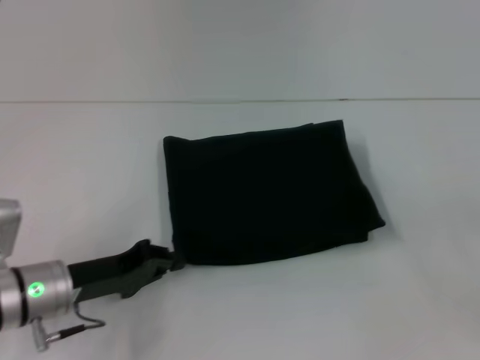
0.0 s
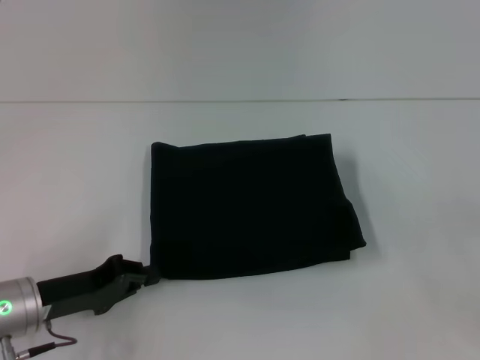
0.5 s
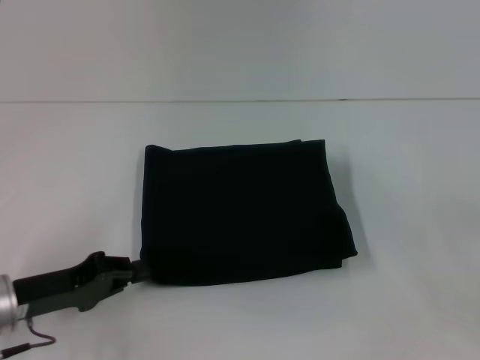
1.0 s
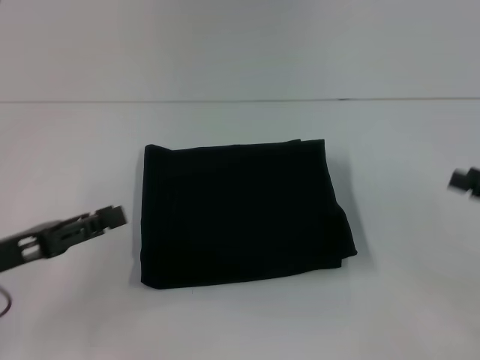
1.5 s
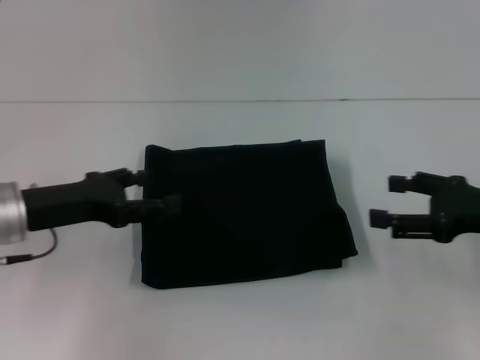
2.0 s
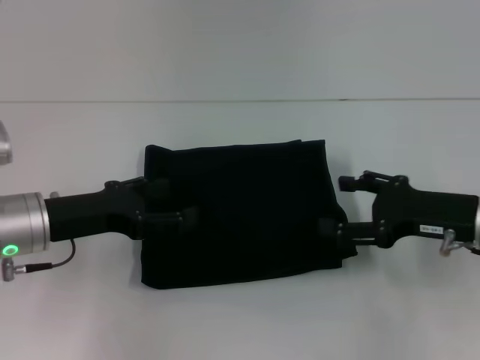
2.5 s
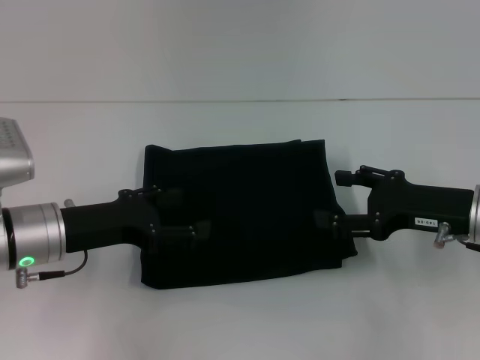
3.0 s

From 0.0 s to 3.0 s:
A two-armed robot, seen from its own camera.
From 0.0 s to 1.5 s: The left gripper shifts approximately 10 cm to the left and upward, and opens.
From 1.5 s to 3.0 s: The left gripper travels to the right and forward by about 10 cm, and opens. The right gripper travels to the left and forward by about 10 cm.

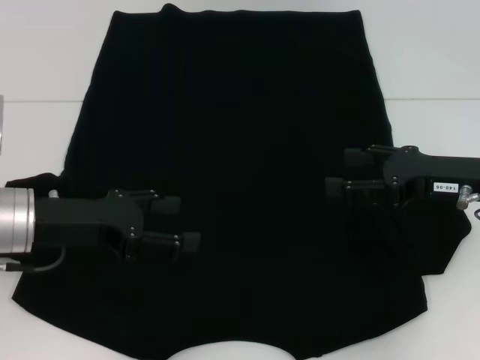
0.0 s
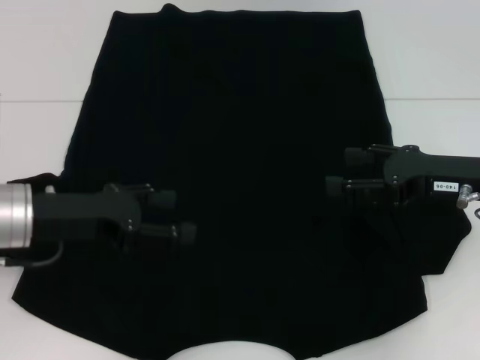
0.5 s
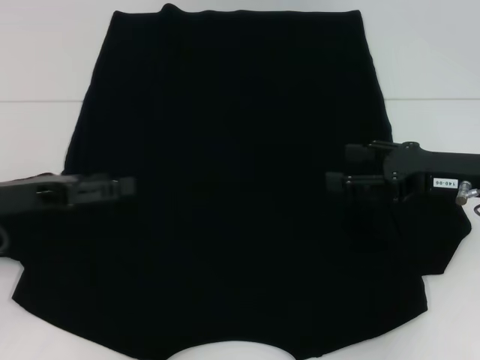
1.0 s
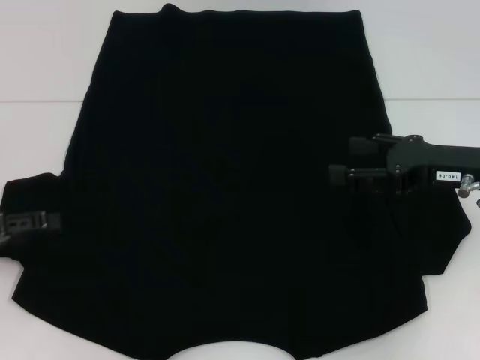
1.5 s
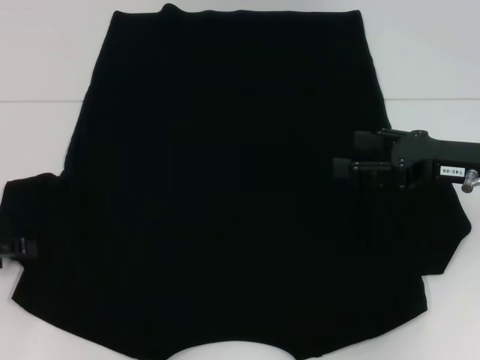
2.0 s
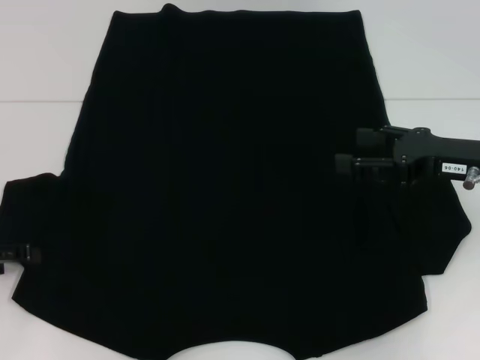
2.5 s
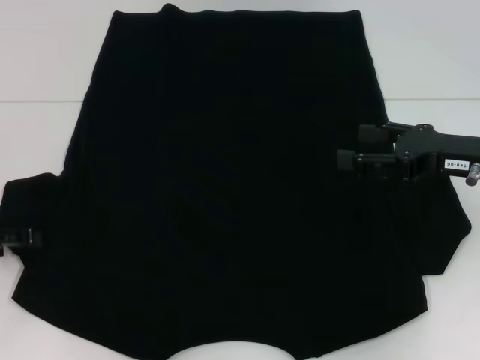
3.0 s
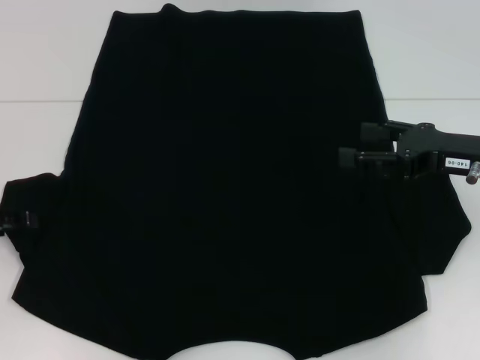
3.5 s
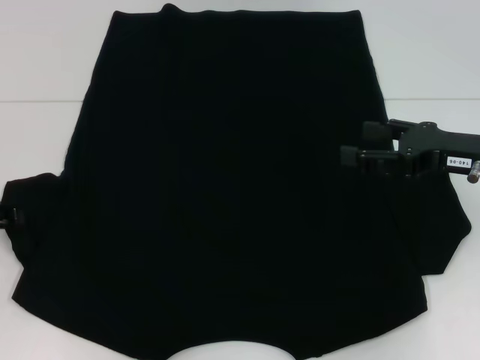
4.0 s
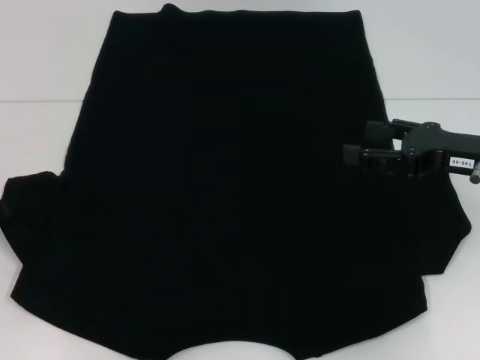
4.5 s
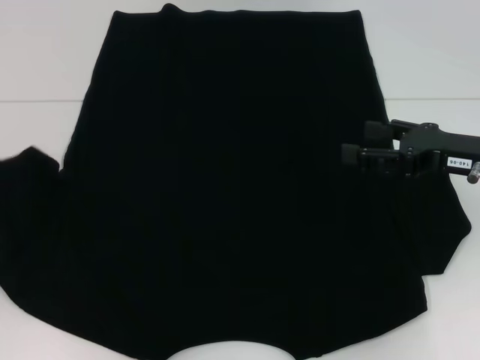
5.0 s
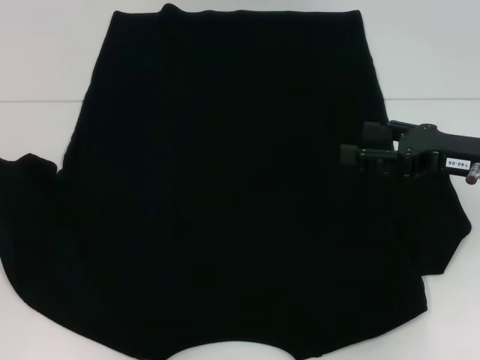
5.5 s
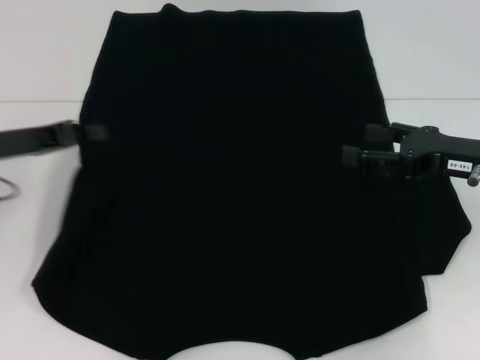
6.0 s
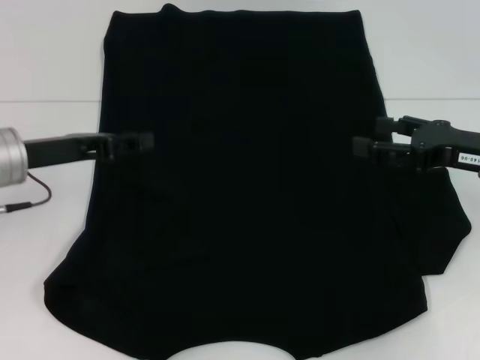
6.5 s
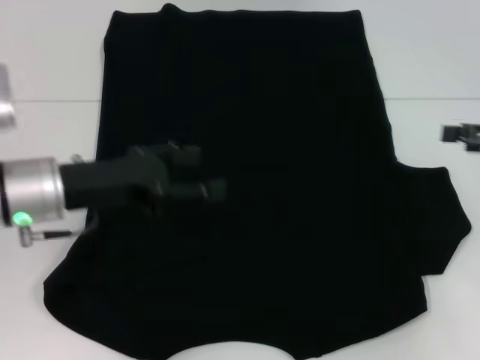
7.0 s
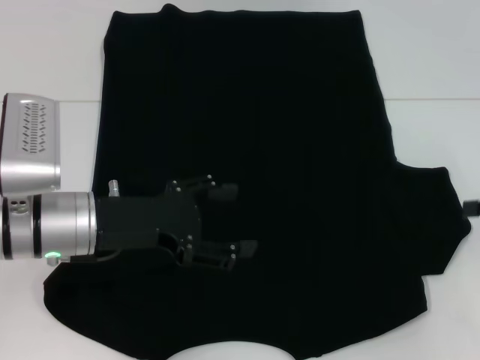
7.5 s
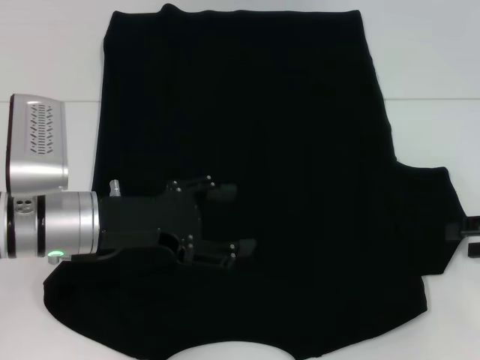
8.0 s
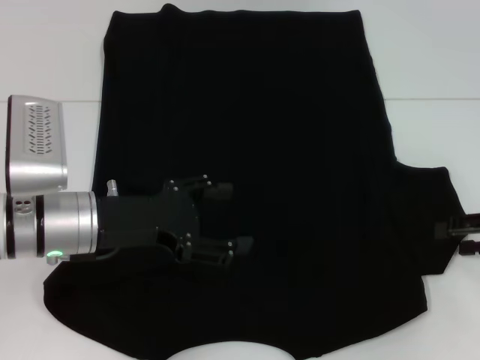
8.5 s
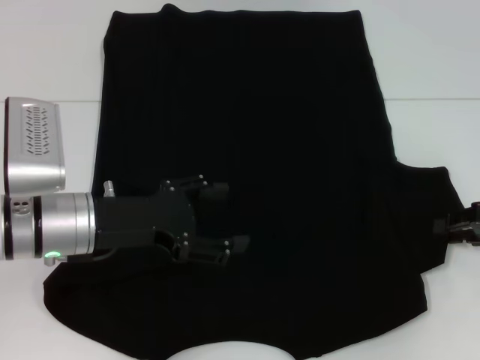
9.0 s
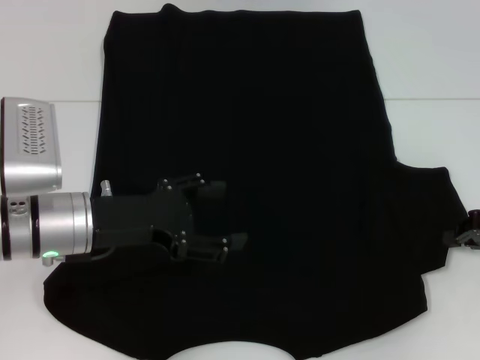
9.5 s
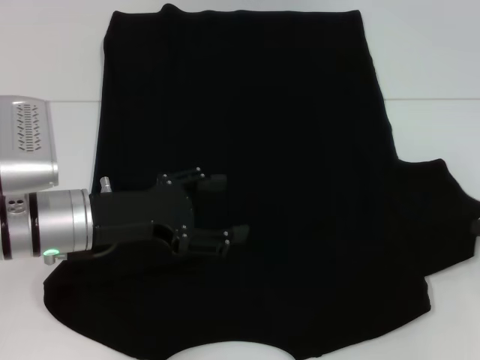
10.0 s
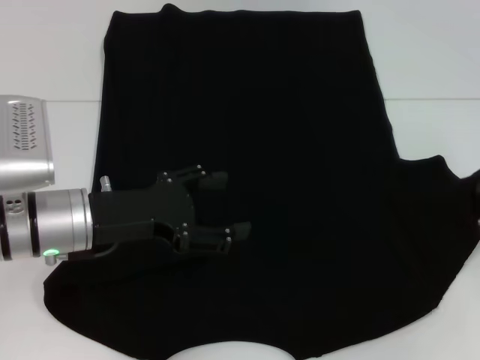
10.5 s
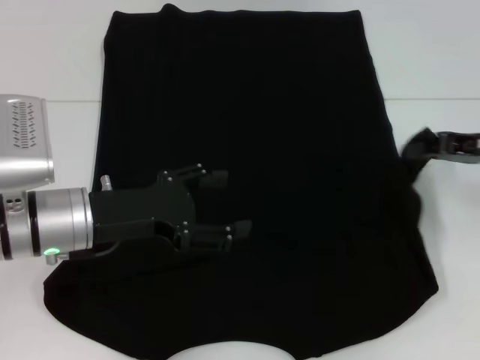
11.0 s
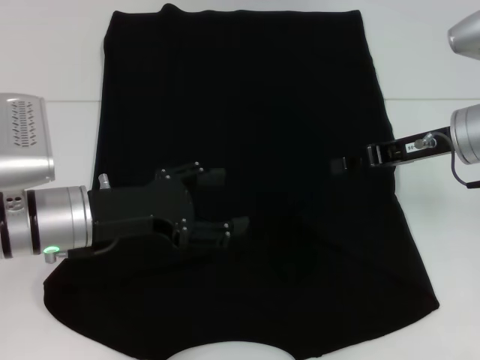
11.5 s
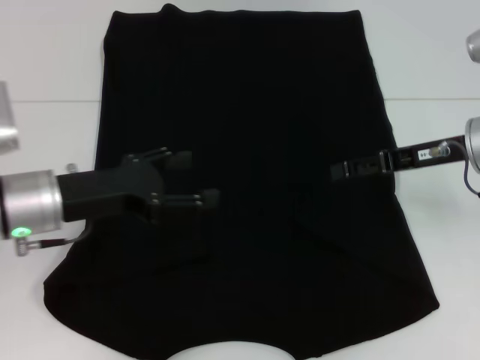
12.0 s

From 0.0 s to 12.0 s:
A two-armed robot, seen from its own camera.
Step, from 0.0 s to 6.0 s: Fold the bottom left sleeve with your left hand.
Step, from 6.5 s to 11.5 s: Fold the bottom right sleeve with your right hand.
From 0.0 s to 2.0 s: The left gripper goes about 10 cm to the left.
From 2.0 s to 4.0 s: There are only small adjustments of the grippers.
From 4.0 s to 6.0 s: The left gripper shifts roughly 5 cm to the right, and closes.
From 6.0 s to 8.0 s: The two grippers go approximately 10 cm to the right. The left gripper opens up.
From 8.0 s to 10.0 s: The right gripper closes.
From 10.0 s to 12.0 s: The right gripper moves to the left, forward and upward, roughly 15 cm, and opens its fingers.

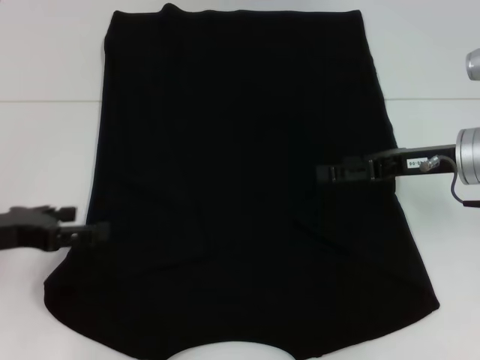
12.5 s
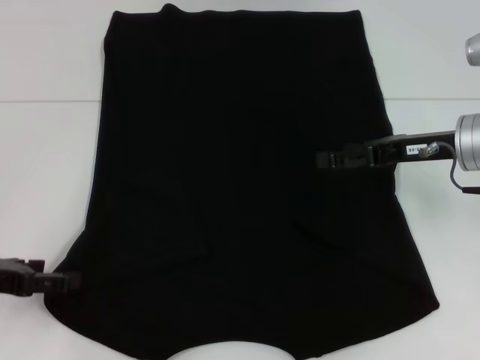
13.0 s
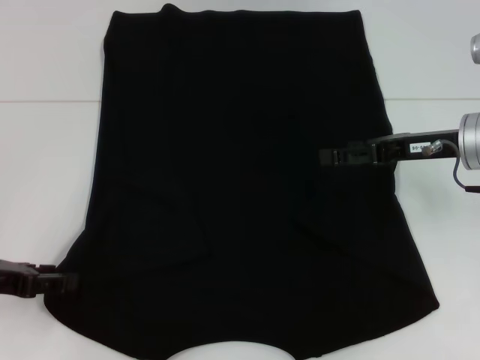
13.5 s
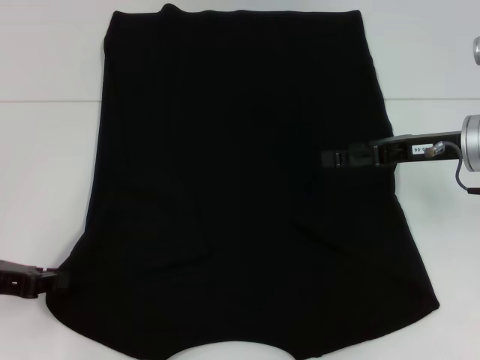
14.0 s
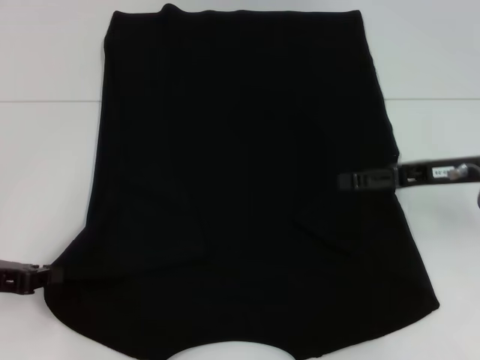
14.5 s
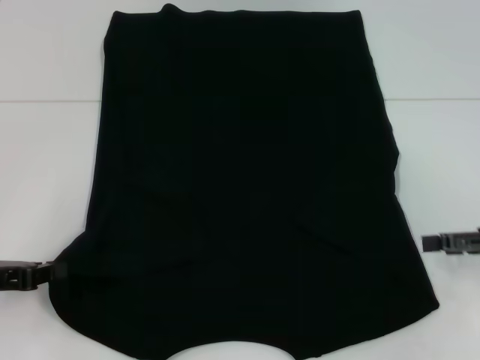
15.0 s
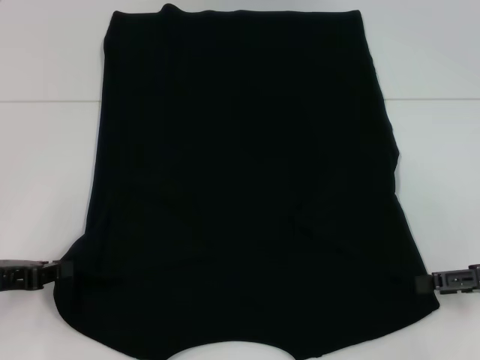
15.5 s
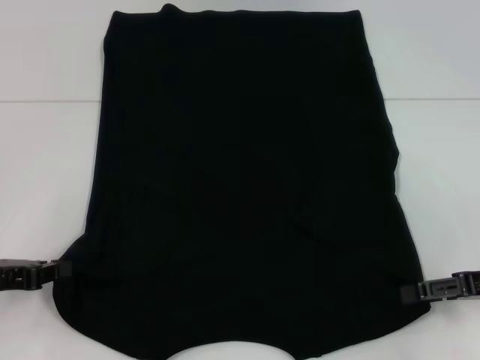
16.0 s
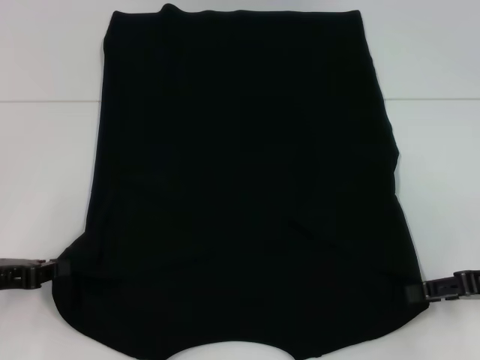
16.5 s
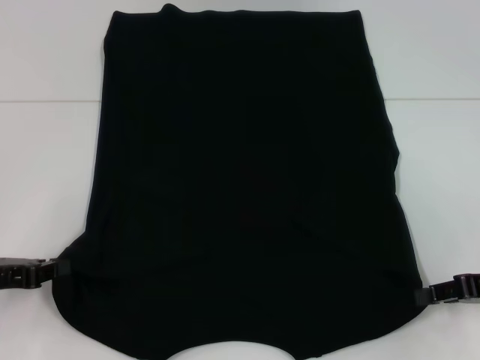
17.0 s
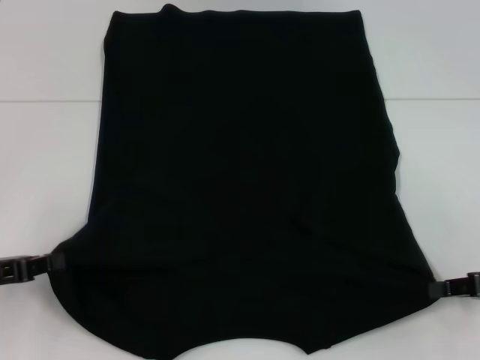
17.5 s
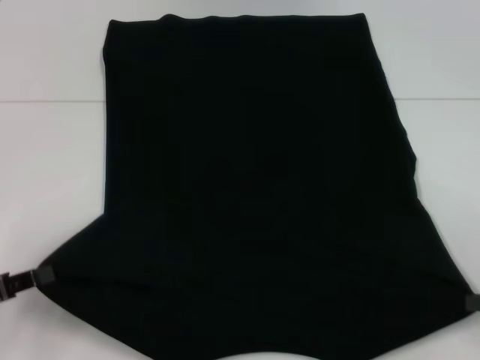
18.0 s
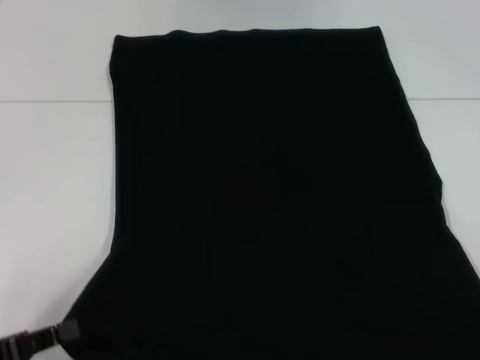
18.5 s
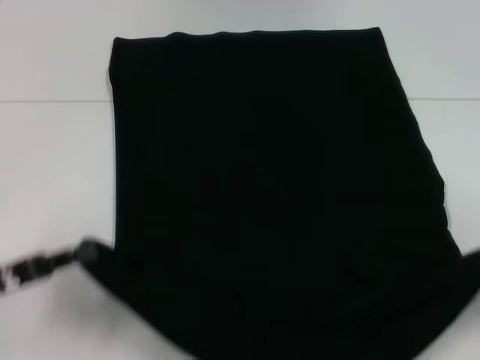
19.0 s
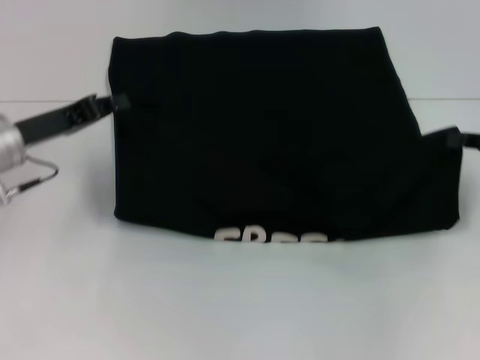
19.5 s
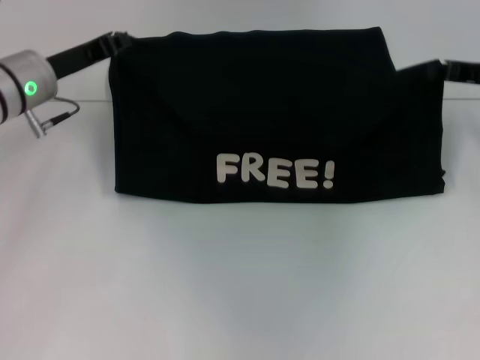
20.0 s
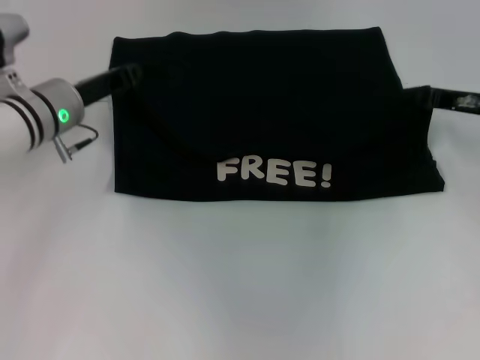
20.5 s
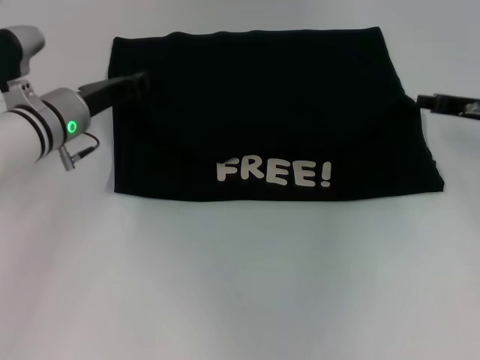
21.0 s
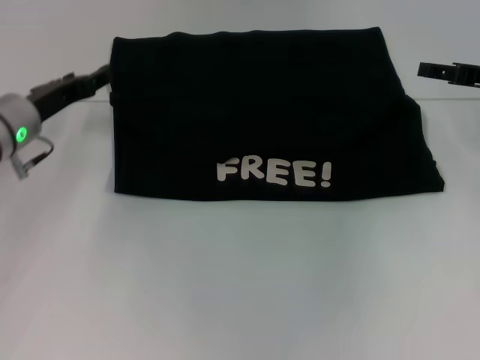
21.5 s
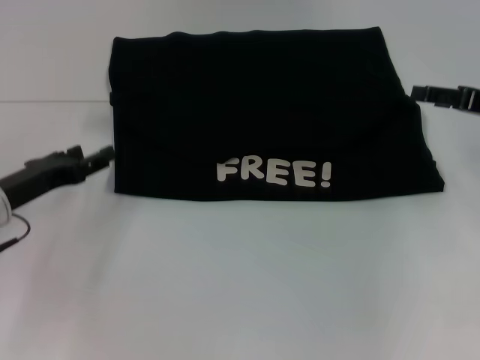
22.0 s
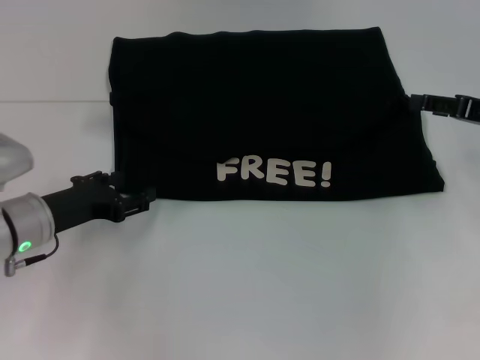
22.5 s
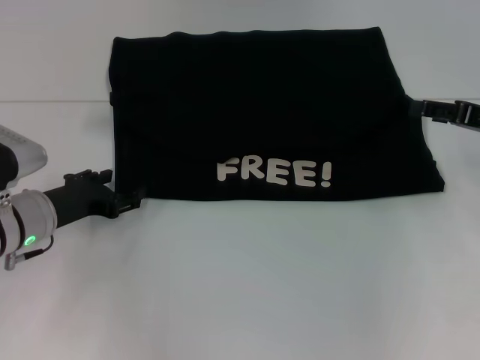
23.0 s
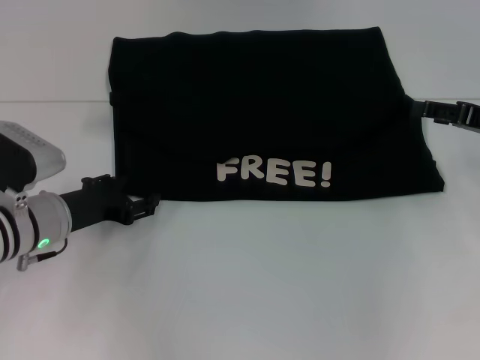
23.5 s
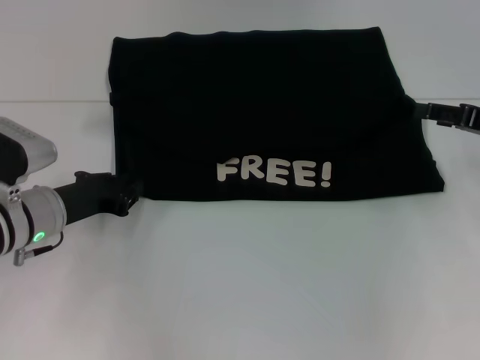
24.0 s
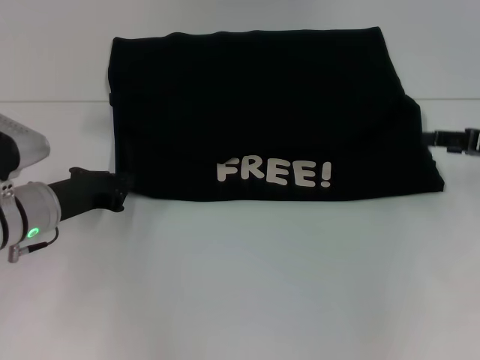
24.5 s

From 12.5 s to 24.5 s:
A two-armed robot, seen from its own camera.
Step, from 12.5 s to 14.5 s: Grab the bottom left corner with your left hand.
Step, from 15.0 s to 17.0 s: Grab the bottom right corner with your right hand.
Step, from 17.5 s to 21.0 s: Fold the clothes with your left hand.
Step, from 17.5 s to 21.0 s: Fold the clothes with your right hand.
From 12.5 s to 14.5 s: The left gripper closes its fingers.
From 14.5 s to 16.5 s: The right gripper shifts about 10 cm backward and to the right.
From 16.5 s to 18.5 s: The left gripper is displaced backward by approximately 10 cm. Meanwhile the right gripper is displaced backward and to the right by approximately 15 cm, and closes.
From 18.5 s to 20.5 s: The right gripper shifts approximately 25 cm forward and to the left, while the left gripper heads forward, covering roughly 25 cm.
From 20.5 s to 22.5 s: The left gripper shifts about 10 cm backward and downward, and opens. The right gripper changes place by about 5 cm, and opens.
From 22.5 s to 24.5 s: The left gripper closes up.
